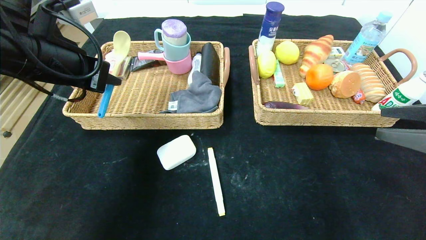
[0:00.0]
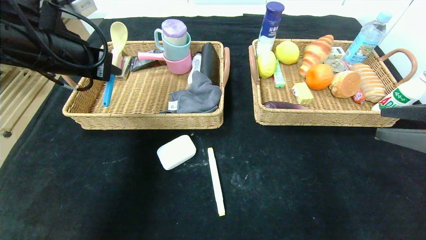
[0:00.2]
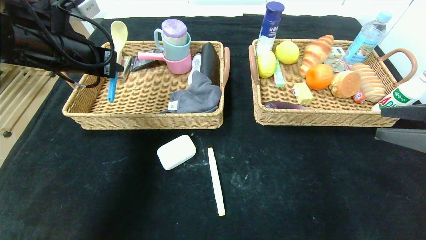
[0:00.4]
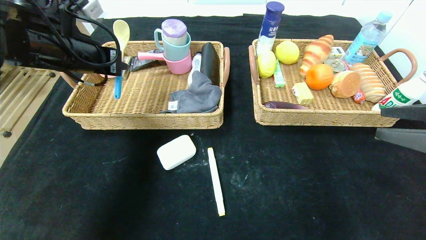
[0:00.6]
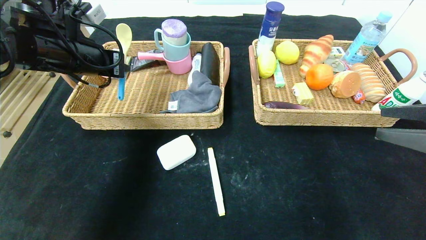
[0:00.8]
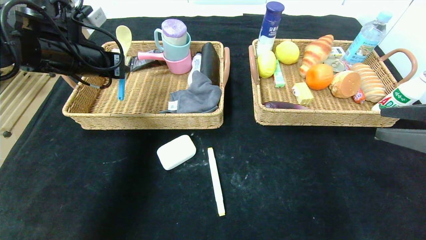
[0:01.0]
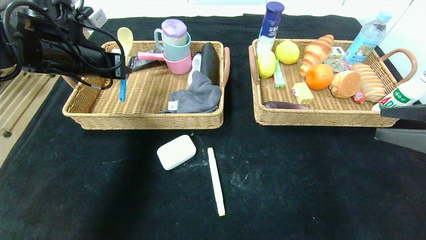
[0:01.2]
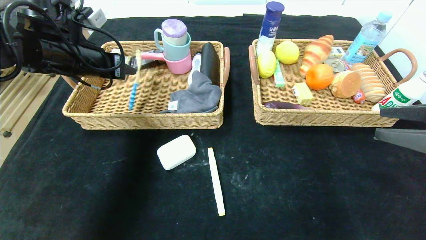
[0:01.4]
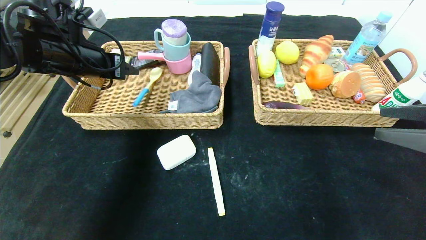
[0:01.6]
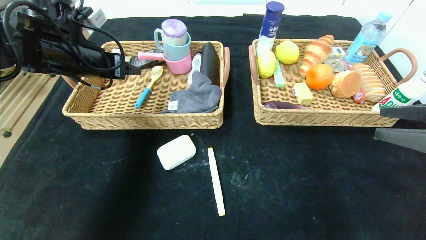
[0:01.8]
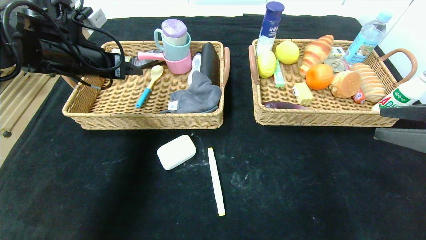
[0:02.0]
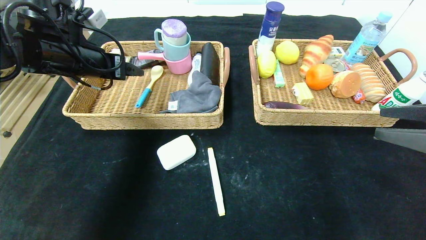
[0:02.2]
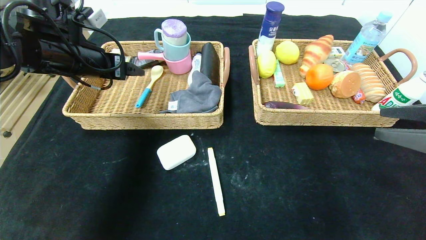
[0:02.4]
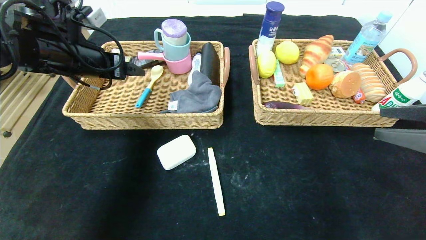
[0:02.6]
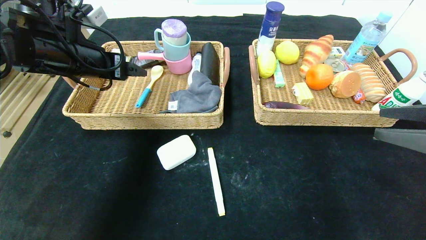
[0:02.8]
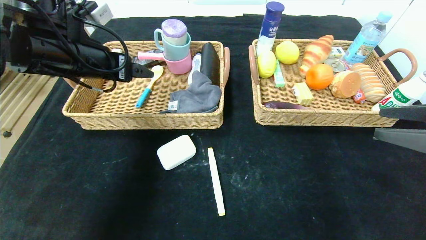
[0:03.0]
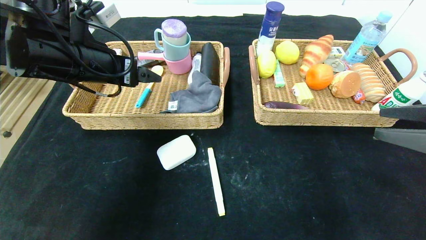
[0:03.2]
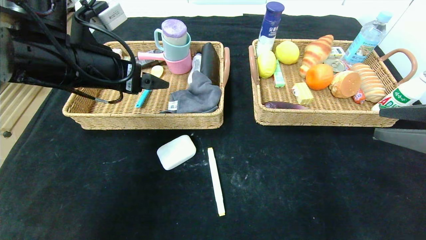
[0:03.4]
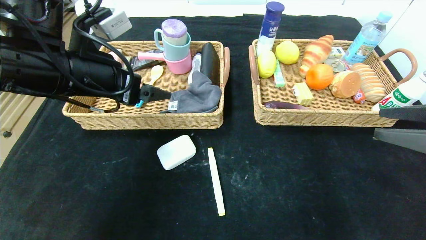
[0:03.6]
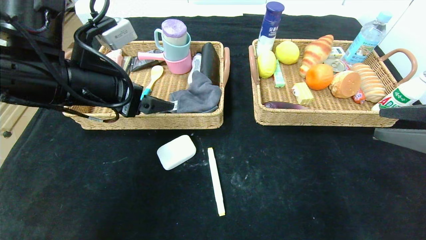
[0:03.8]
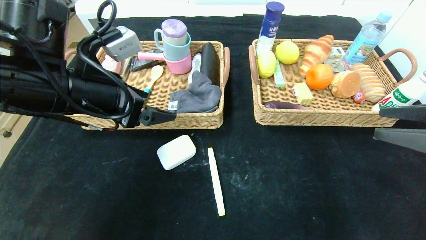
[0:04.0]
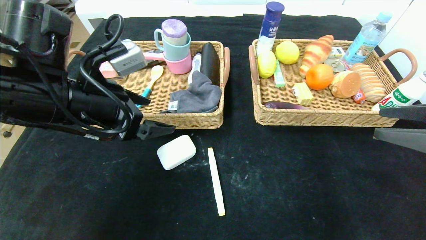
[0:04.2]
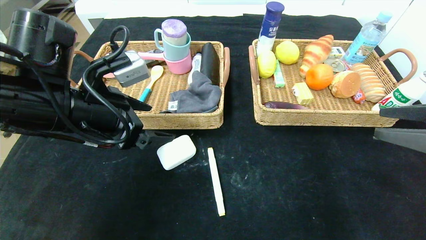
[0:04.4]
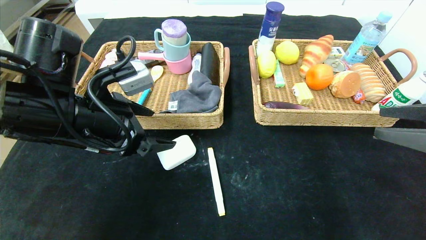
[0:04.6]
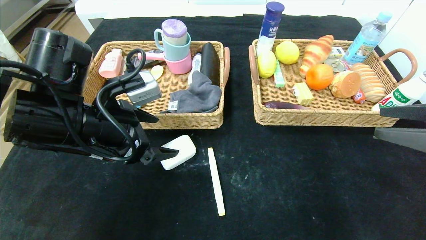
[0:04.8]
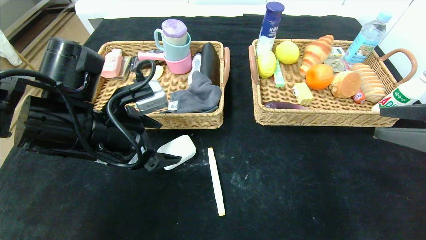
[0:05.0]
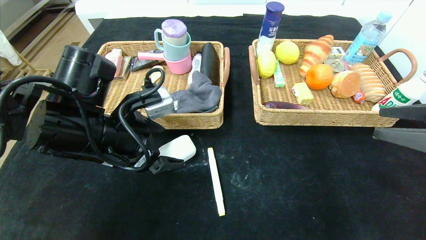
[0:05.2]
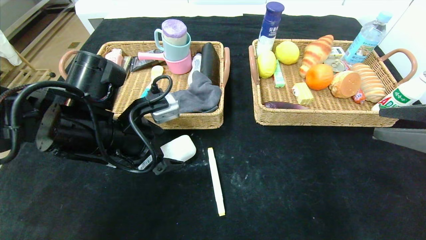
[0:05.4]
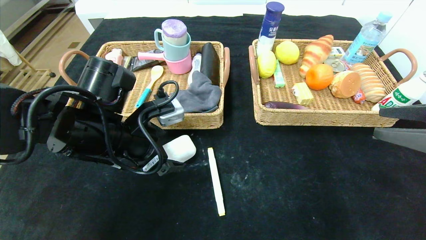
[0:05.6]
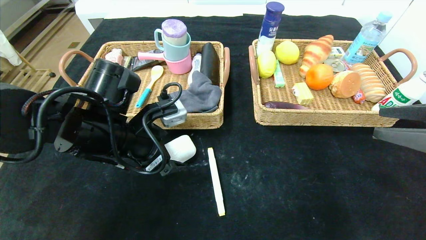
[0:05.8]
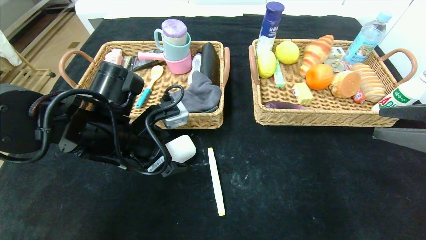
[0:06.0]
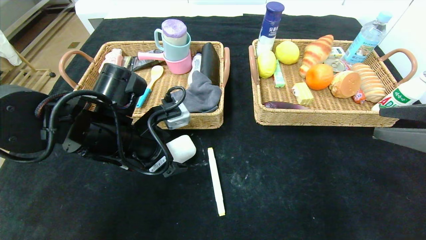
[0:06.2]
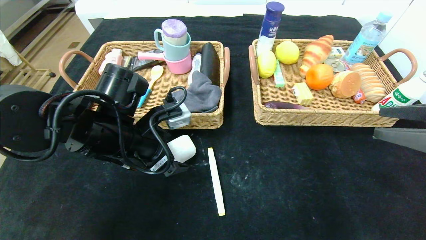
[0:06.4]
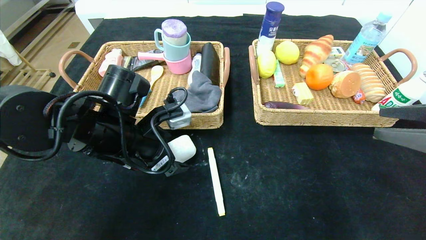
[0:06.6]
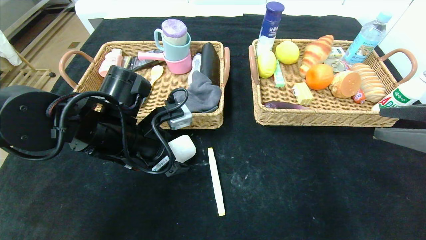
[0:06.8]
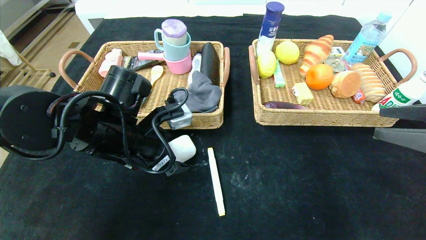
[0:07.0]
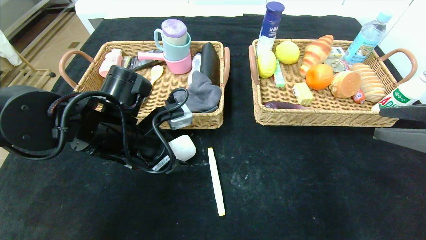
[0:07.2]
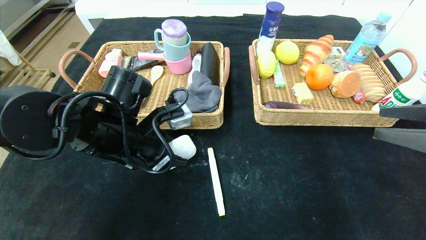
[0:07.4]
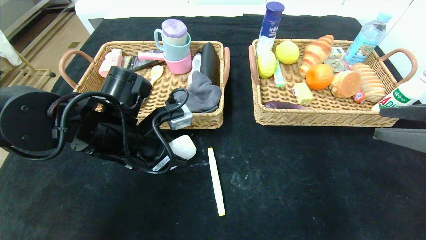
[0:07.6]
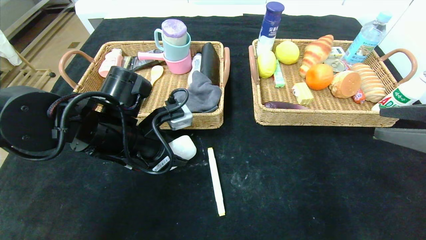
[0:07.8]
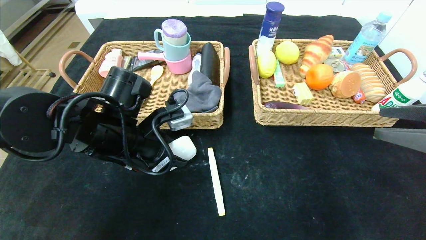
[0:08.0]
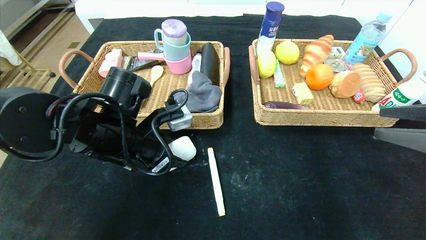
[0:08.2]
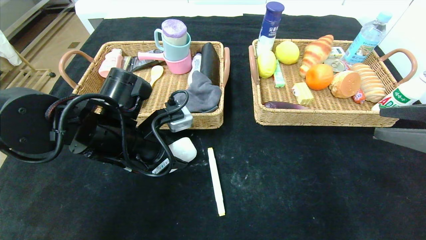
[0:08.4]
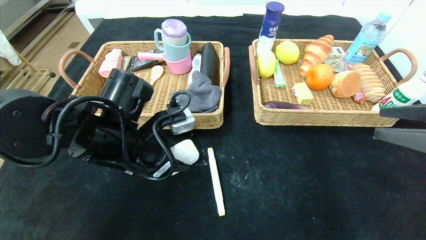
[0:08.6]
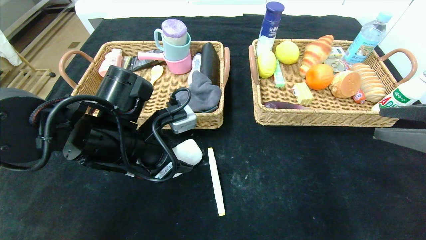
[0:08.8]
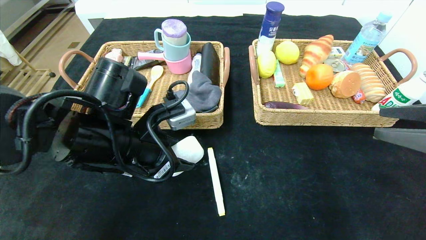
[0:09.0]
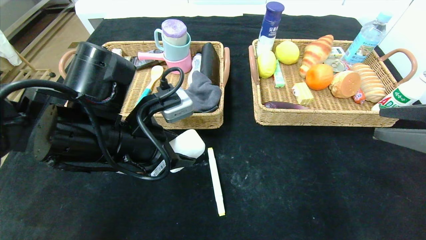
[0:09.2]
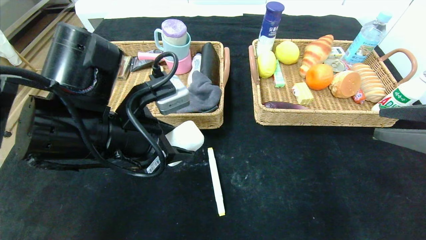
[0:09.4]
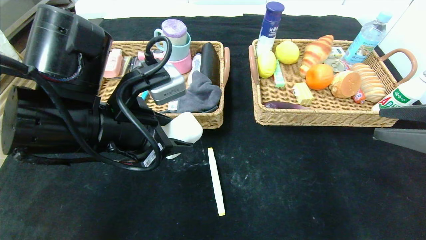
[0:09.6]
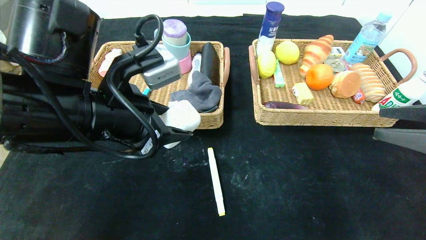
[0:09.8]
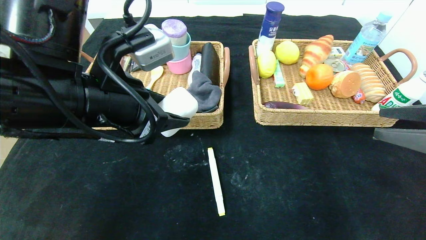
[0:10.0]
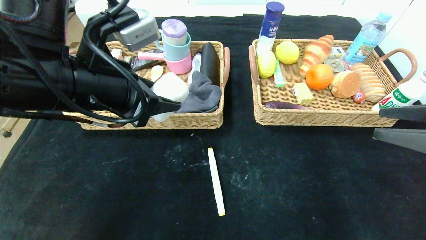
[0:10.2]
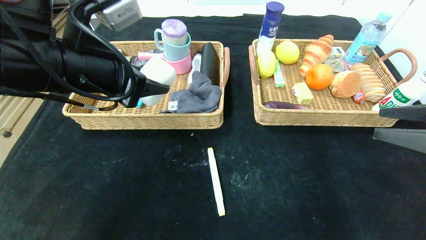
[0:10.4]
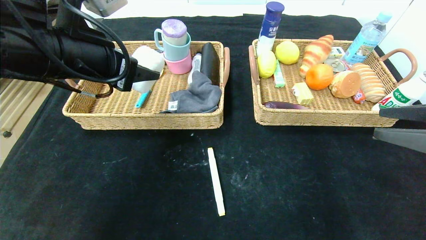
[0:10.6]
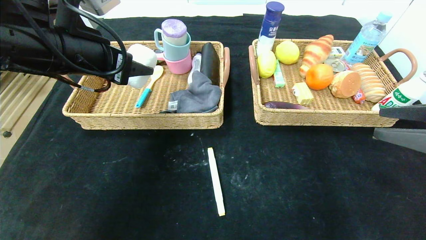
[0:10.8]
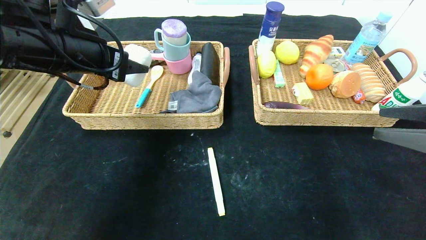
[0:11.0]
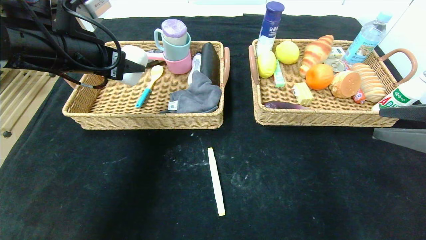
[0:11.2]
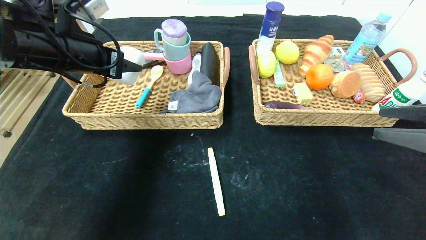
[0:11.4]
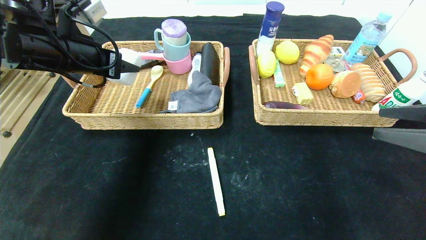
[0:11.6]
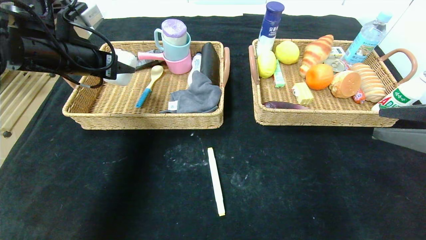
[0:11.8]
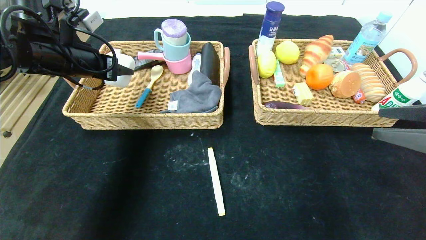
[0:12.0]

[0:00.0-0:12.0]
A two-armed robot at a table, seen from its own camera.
0.0 to 1.6 s: The left gripper is displaced forward by roughly 10 cm, and opens its fingers.
1.6 to 3.0 s: The left gripper opens its fingers.
3.0 to 4.4 s: The left gripper shifts about 10 cm backward and downward.
4.4 to 6.0 s: The left gripper goes approximately 5 cm downward.
6.0 to 7.6 s: The left gripper closes.
7.6 to 9.0 s: There are only small adjustments of the grippers.
9.0 to 10.4 s: The left gripper travels upward by roughly 10 cm.
10.4 to 12.0 s: The left gripper goes roughly 15 cm forward and to the left.

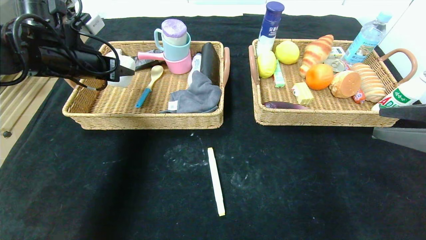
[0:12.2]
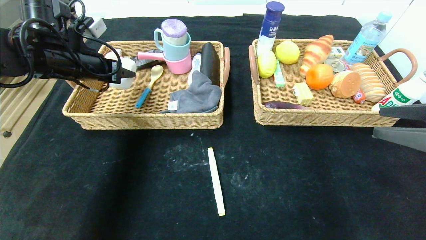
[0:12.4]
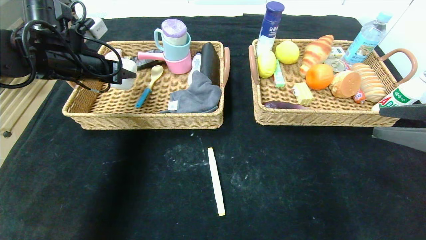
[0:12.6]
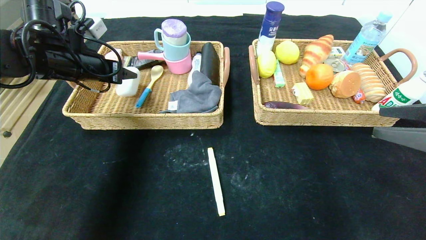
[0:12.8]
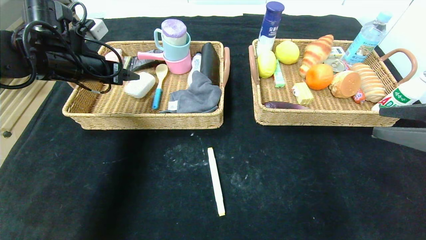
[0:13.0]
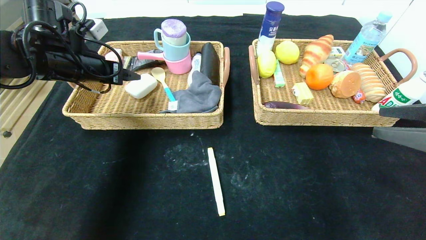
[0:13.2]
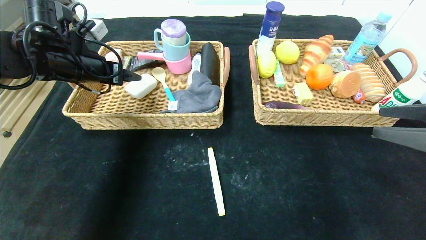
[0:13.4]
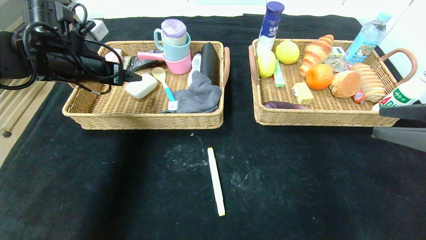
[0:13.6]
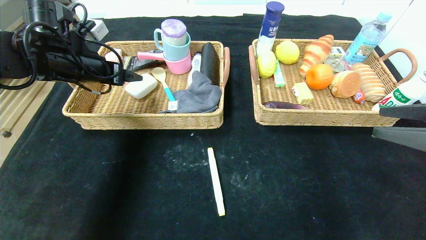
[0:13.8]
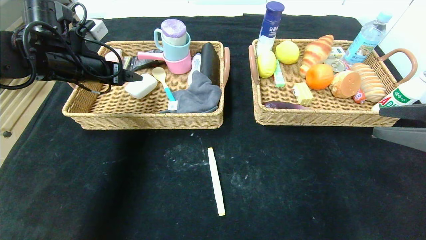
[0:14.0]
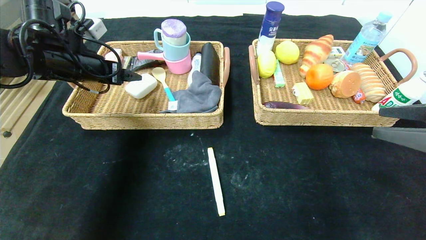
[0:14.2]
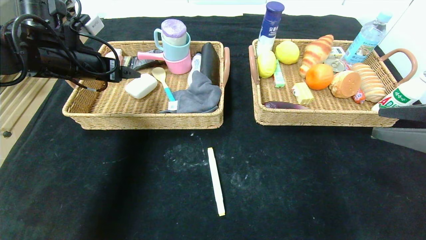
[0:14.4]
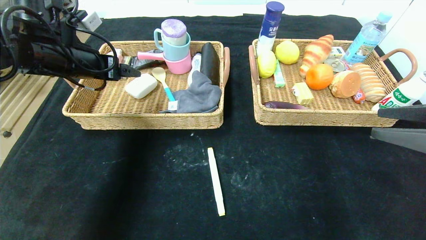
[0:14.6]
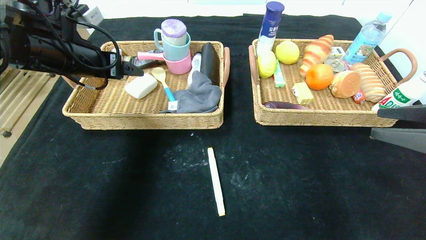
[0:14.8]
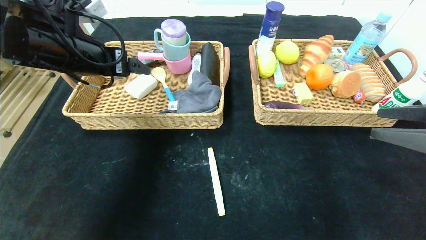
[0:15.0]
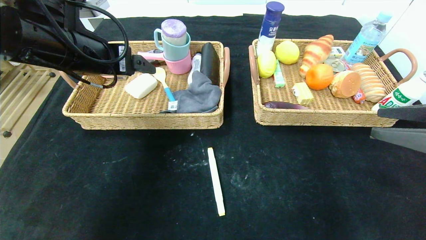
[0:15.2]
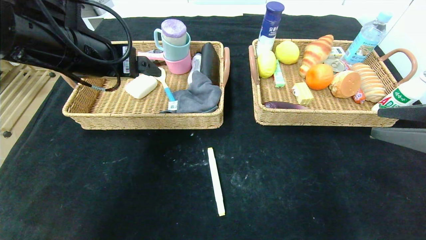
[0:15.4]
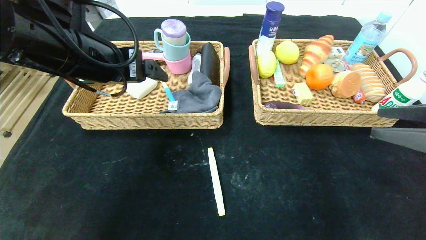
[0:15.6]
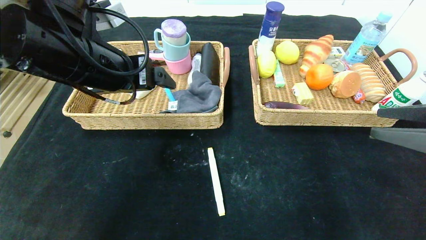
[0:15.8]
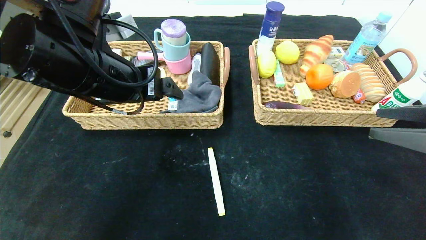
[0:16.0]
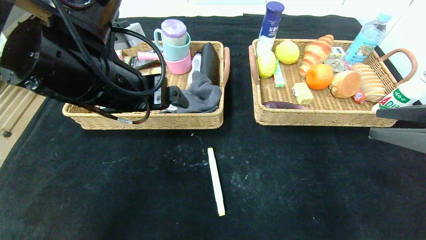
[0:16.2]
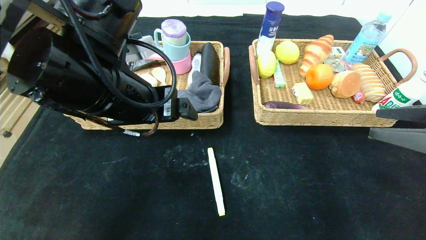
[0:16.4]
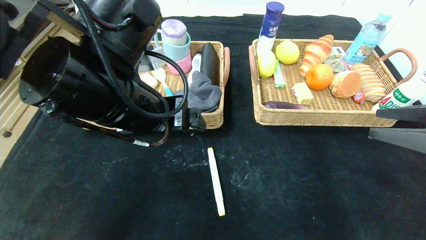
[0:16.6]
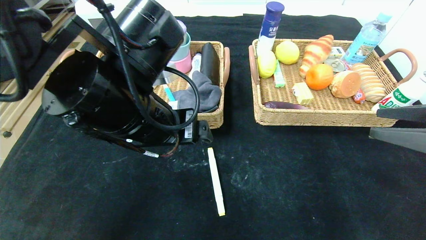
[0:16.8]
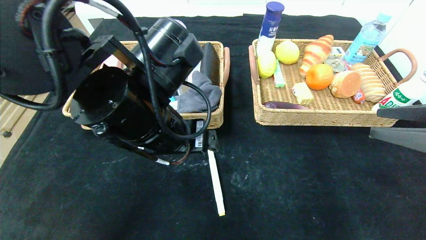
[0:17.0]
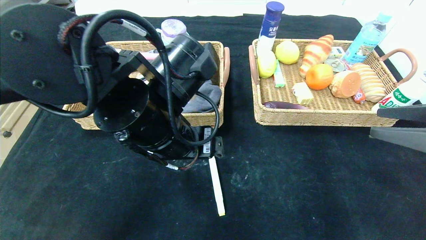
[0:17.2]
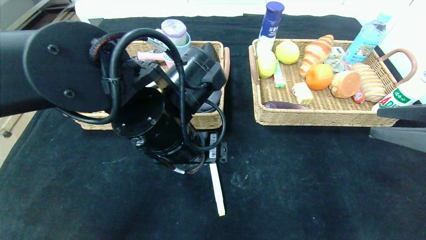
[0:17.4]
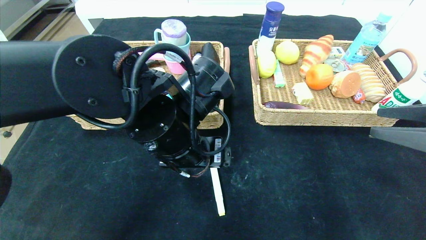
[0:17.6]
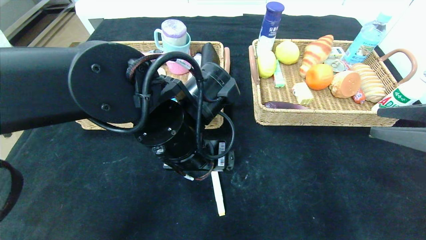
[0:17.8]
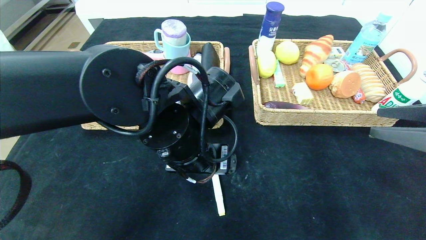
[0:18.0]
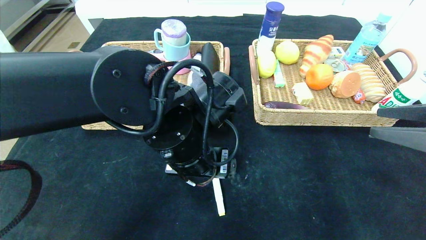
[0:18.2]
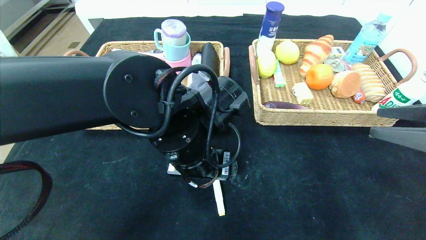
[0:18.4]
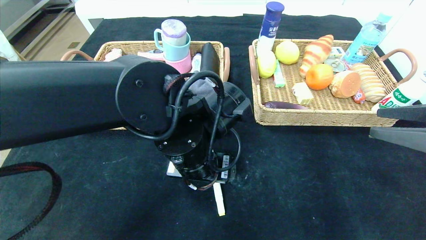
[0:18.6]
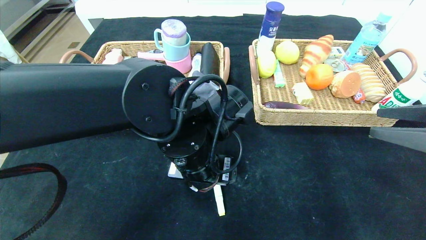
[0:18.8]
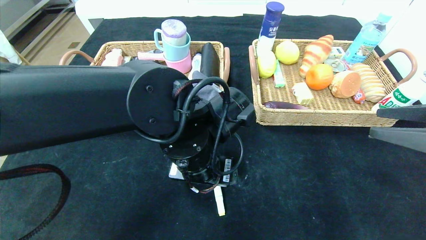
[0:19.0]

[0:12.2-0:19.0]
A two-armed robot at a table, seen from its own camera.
12.2 to 13.6 s: The left gripper opens.
13.6 to 15.0 s: The left gripper shifts some 10 cm backward and to the right.
15.0 to 16.2 s: The left gripper is displaced to the right and backward by about 10 cm.
16.2 to 17.6 s: The left gripper moves to the right and downward, about 10 cm.
17.6 to 19.0 s: The grippers make only small movements.
